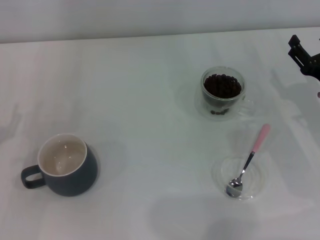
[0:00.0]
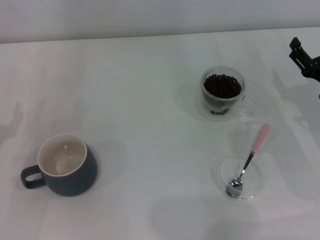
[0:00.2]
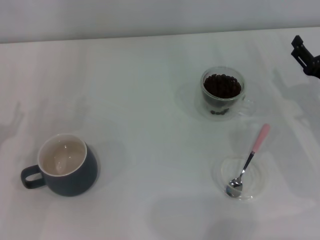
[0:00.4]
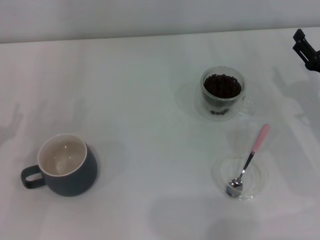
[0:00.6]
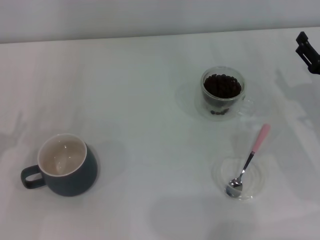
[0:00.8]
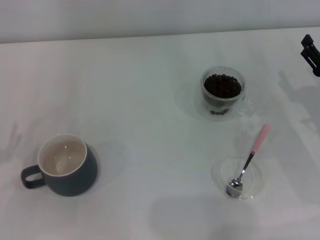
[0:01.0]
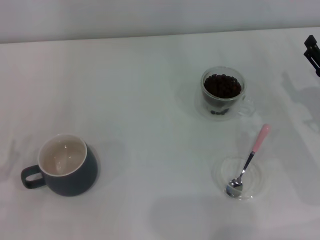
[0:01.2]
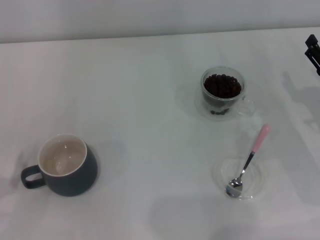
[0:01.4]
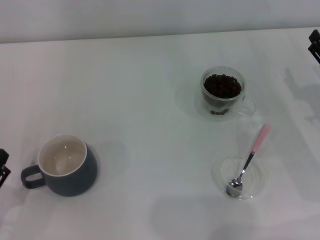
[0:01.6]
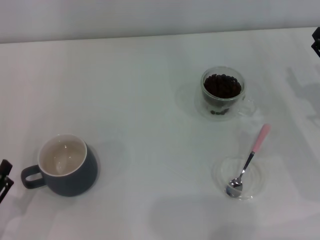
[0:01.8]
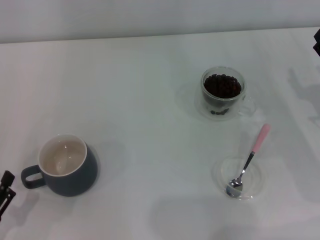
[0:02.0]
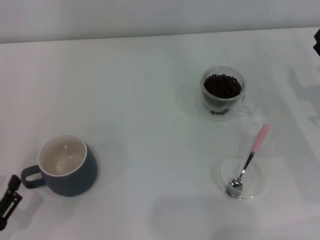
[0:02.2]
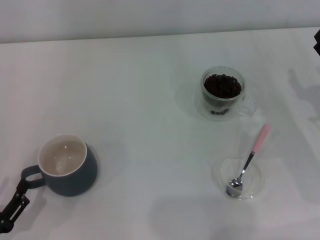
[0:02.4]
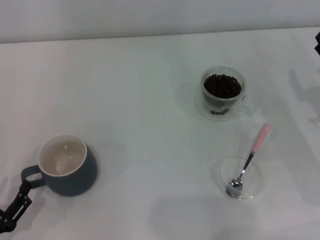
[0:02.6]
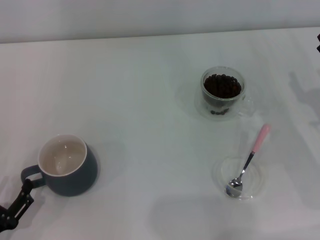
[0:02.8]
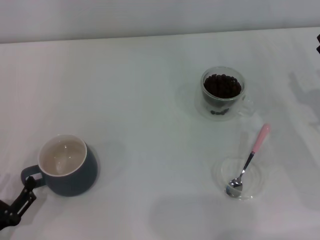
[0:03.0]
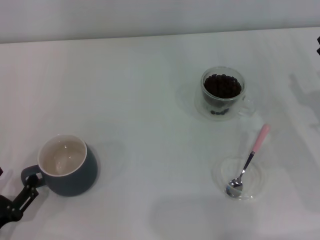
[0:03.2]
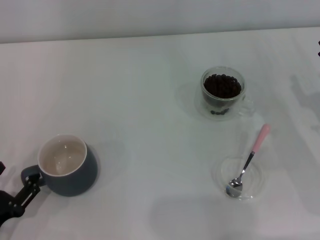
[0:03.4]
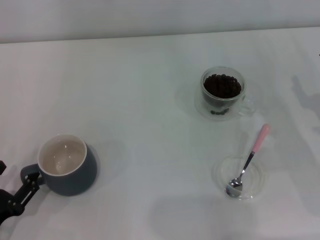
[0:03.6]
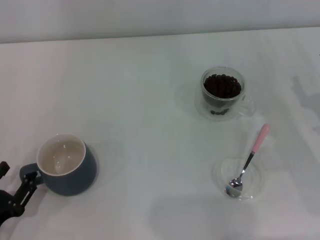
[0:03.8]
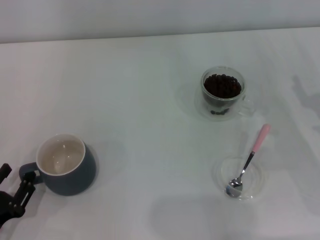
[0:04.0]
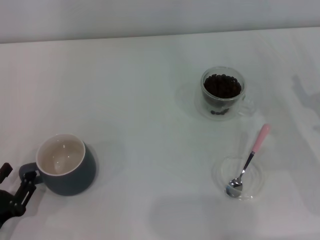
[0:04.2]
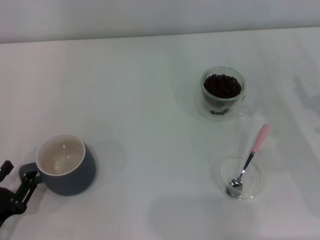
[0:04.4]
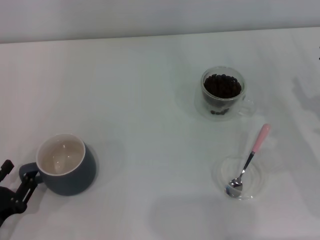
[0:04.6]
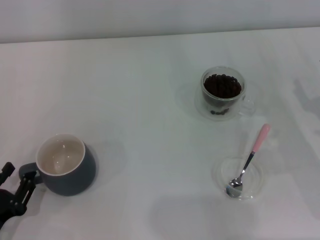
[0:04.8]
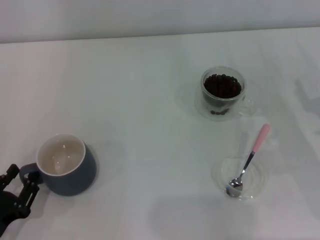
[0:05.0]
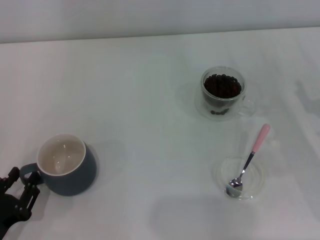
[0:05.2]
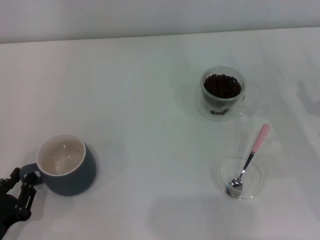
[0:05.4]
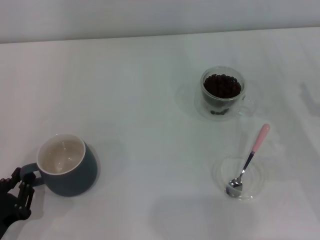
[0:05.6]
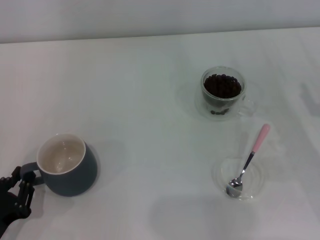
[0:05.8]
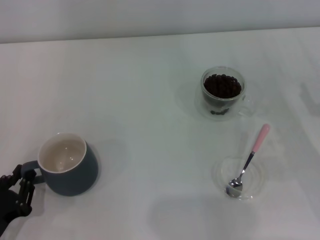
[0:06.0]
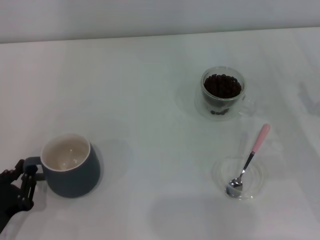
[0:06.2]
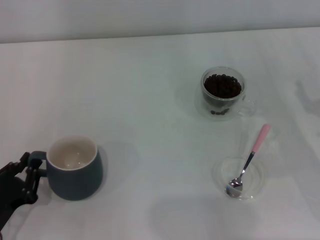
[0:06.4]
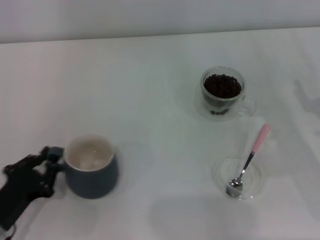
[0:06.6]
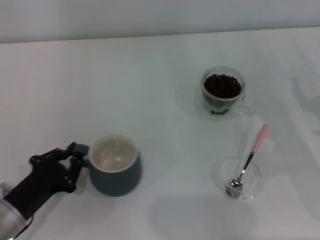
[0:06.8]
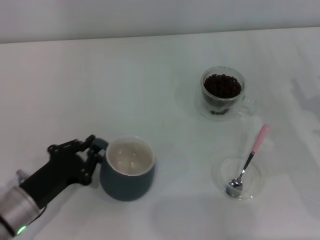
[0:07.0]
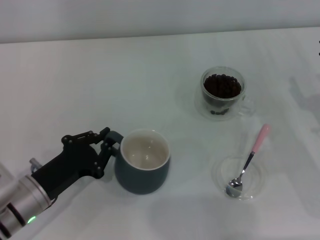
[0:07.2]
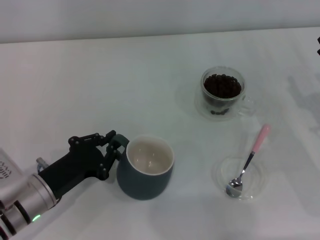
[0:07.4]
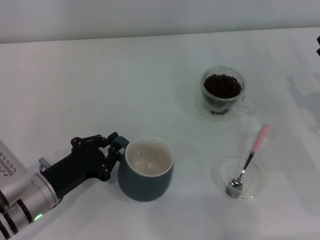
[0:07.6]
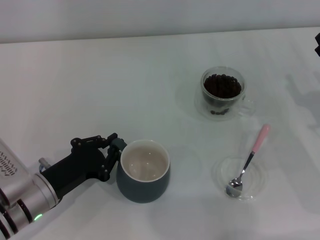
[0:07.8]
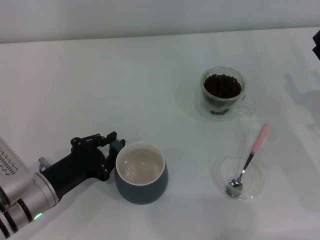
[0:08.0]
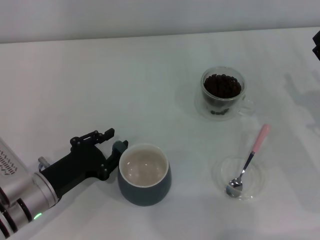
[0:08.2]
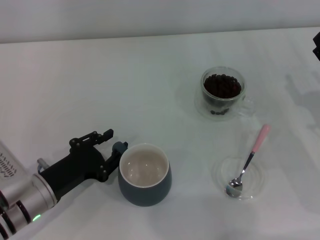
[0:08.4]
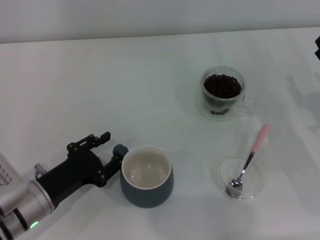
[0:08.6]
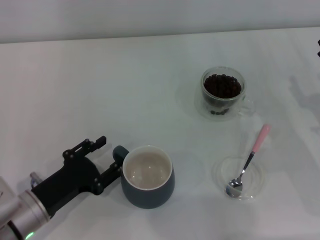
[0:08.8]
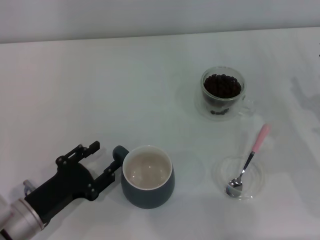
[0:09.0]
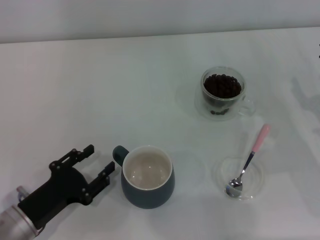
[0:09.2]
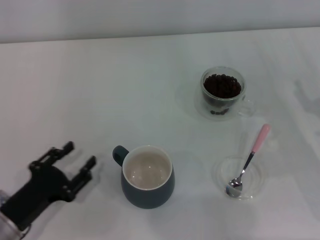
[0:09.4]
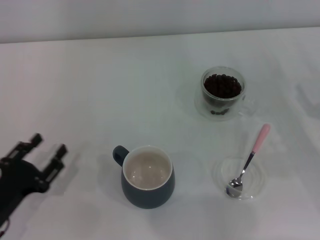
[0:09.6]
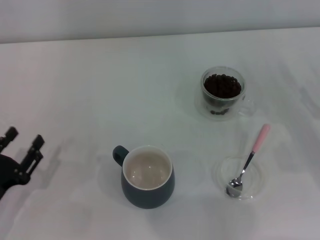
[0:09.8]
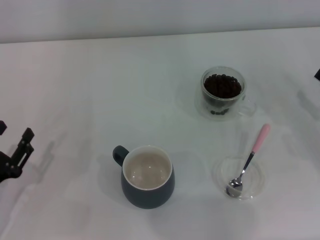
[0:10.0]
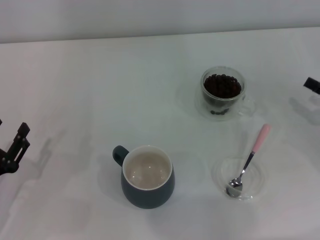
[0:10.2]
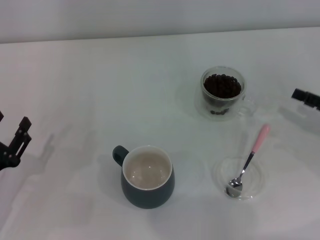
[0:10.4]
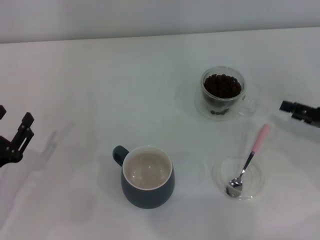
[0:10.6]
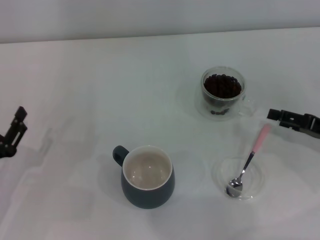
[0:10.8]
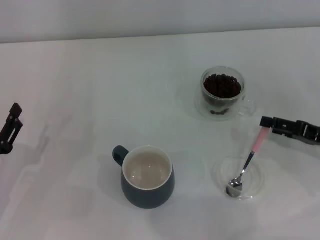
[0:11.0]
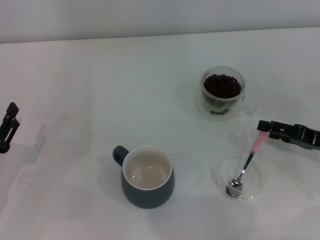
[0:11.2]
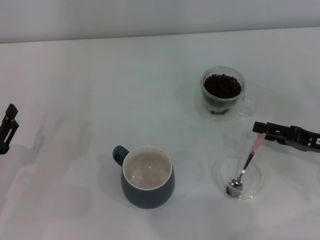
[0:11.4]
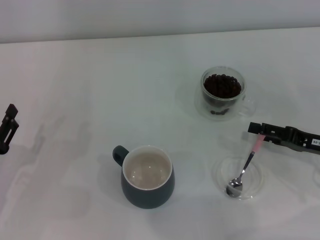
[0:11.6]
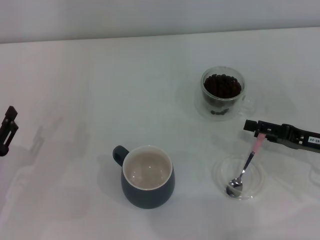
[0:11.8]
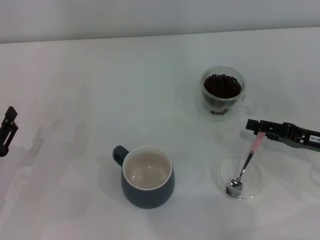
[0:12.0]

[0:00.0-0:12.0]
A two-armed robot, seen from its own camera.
Task of the whole recording: Use a pink spoon to take out the coffee beans from the glass and pour them into the gray cup.
Step, 0:00.0 to 0:09.4: Move the cup to the center of view with the left gripper.
0:01.6 to 0:03.0: The grippers make only small movements.
0:03.0 to 0:04.4: The left gripper closes.
0:04.4 to 0:06.0: The left gripper closes.
0:06.0 to 0:07.6: The left gripper shifts roughly 15 cm forward and to the right.
0:07.6 to 0:09.0: The left gripper opens its fingers.
0:09.0 to 0:10.4: The left gripper goes some 5 cm to the left. Meanwhile the right gripper goes some 5 cm to the right.
0:10.4 to 0:12.0: The right gripper travels to the left by roughly 5 cm.

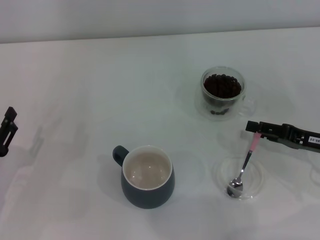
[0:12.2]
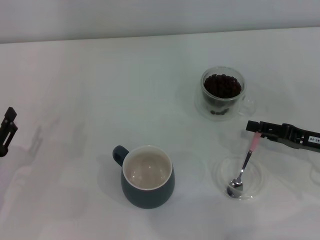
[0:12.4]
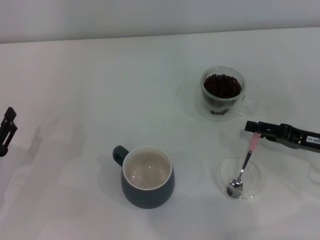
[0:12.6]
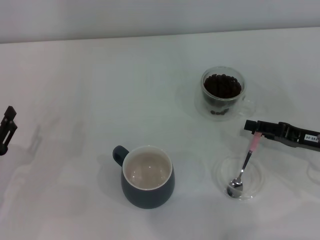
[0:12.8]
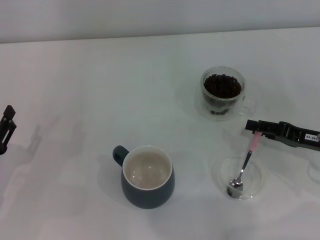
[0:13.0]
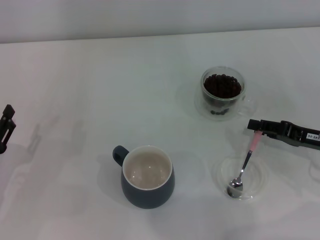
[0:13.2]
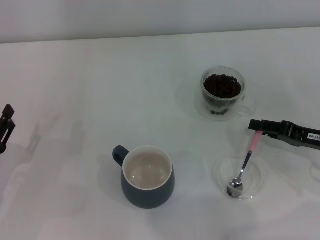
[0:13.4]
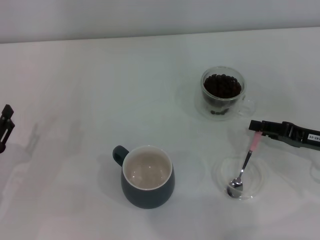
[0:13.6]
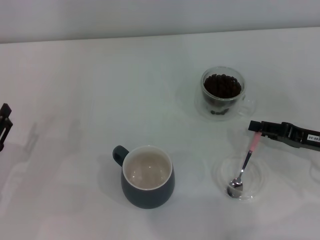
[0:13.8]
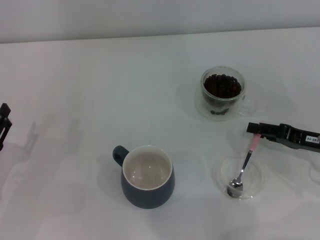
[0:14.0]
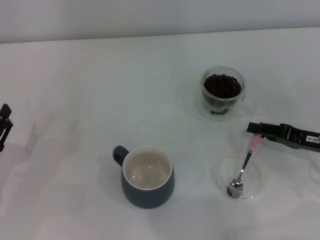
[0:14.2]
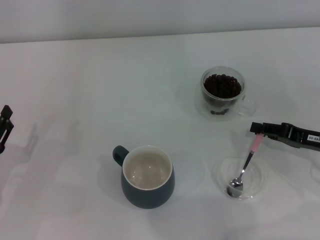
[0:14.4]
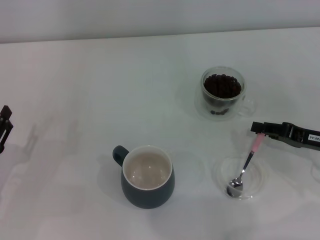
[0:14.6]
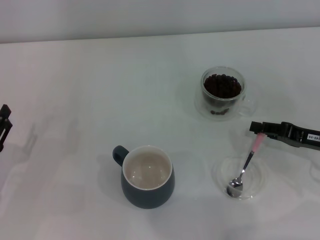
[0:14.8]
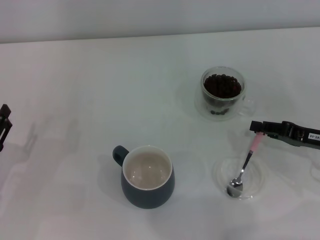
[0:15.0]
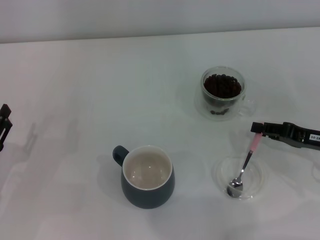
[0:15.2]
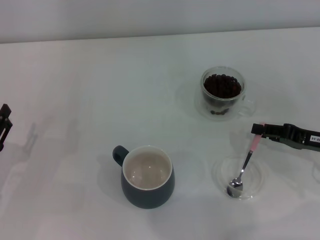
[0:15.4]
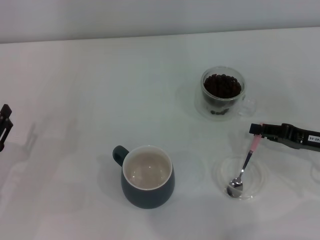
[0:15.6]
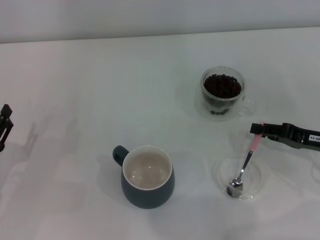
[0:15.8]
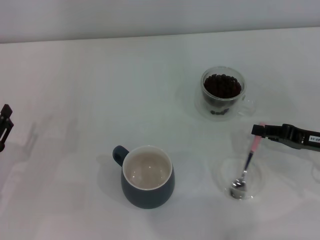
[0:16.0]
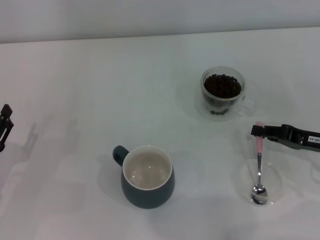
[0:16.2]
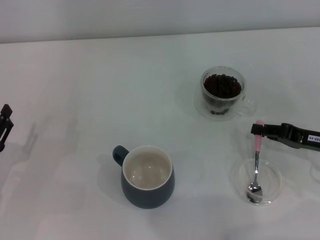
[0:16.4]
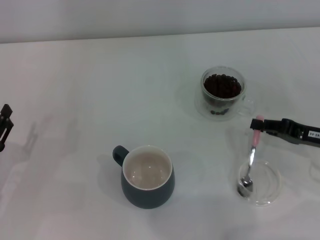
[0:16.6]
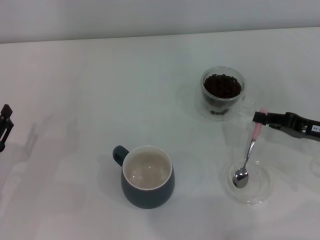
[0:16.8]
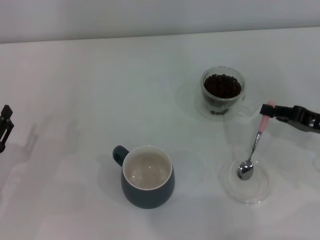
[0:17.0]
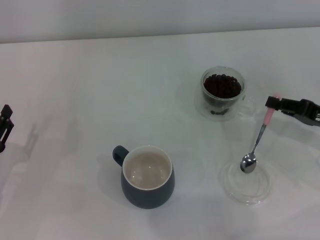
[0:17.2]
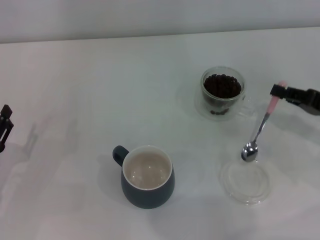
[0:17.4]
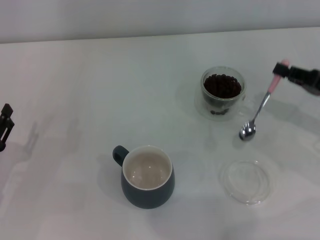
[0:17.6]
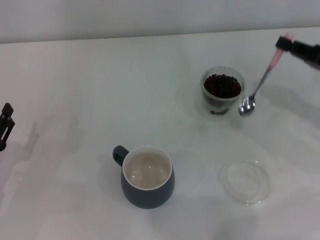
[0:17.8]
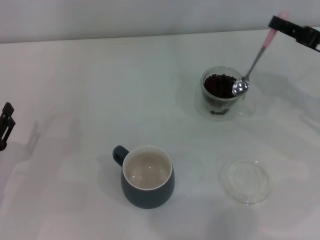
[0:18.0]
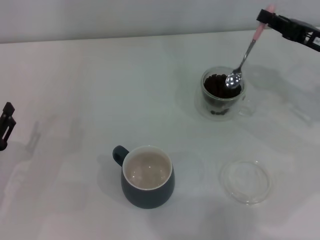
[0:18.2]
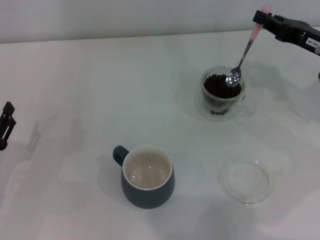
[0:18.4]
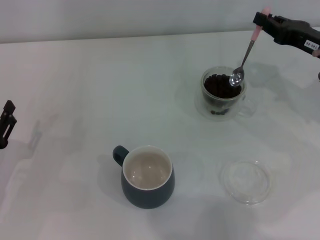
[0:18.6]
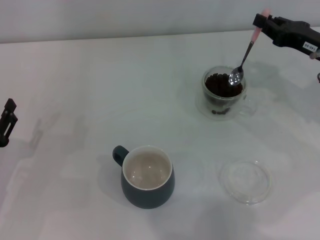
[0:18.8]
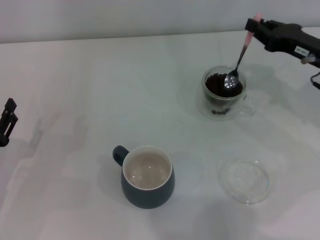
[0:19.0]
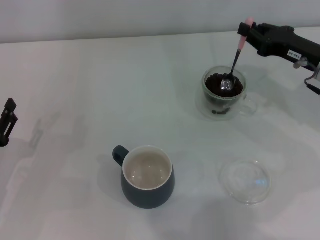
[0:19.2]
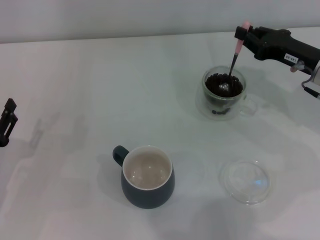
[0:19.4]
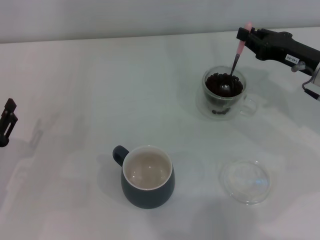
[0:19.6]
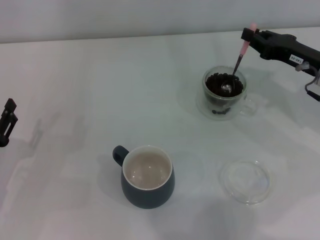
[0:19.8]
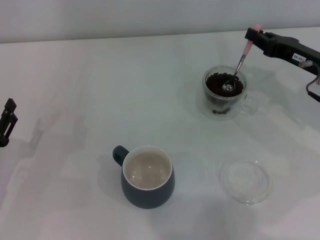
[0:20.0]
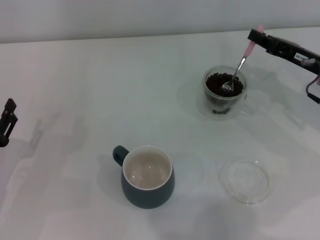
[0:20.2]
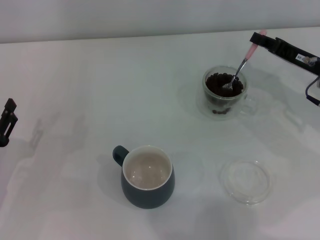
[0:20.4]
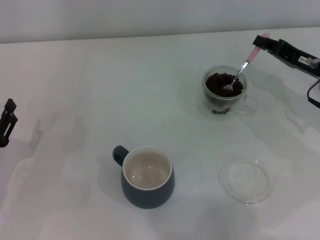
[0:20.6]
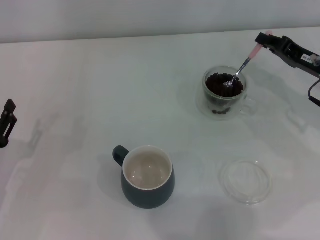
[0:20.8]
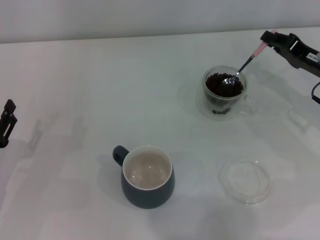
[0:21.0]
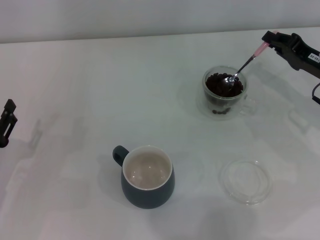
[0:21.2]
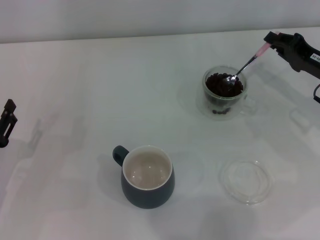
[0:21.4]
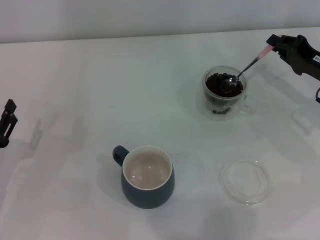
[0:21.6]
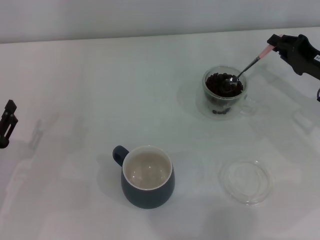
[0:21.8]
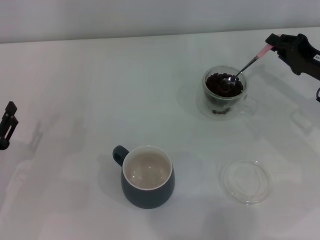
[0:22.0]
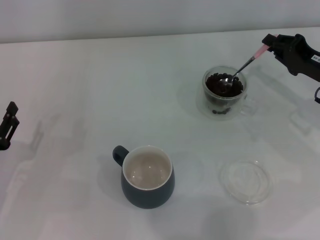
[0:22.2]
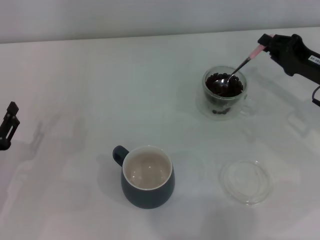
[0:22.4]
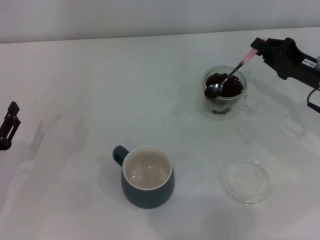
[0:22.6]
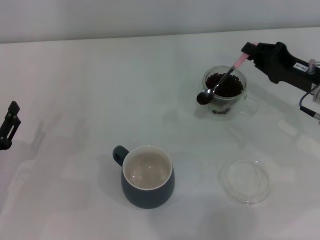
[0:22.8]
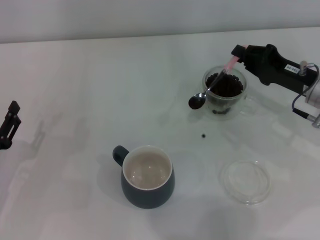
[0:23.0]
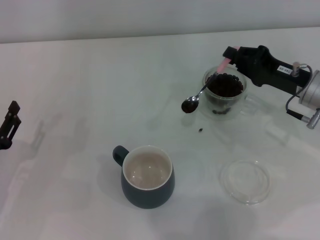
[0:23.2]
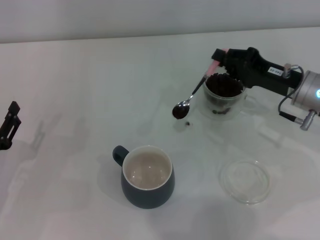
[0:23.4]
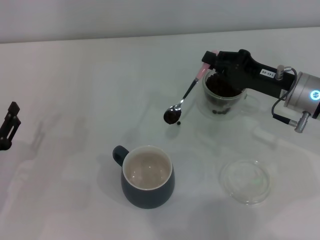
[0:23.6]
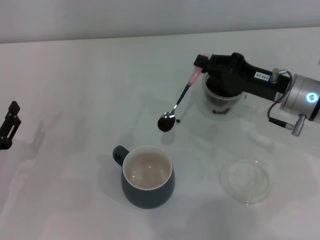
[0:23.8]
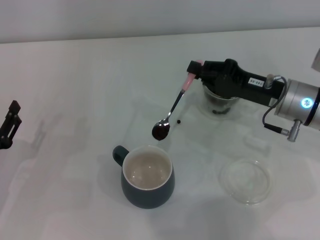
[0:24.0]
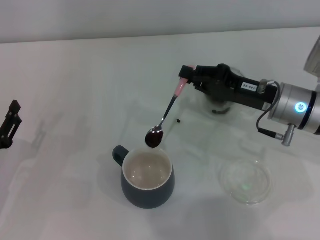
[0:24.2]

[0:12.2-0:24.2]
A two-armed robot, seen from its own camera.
Task of the whole recording: Use a pink spoon to take out the coffee beans from the glass and pour them into the gray cup.
Step, 0:12.2 to 0:17.4: Pick up the spoon with the right gripper.
0:12.2 to 0:16.6: Neither gripper changes place.
0:16.6 to 0:18.2: The right gripper is displaced forward and upward by roughly 10 cm.
0:18.2 to 0:19.8: The grippers stay close to where they were, moving slightly.
0:21.2 to 0:22.6: The grippers move only a little.
0:22.6 to 0:24.2: The right gripper goes roughly 10 cm to the left.
